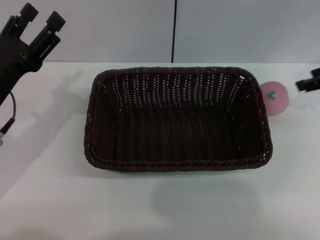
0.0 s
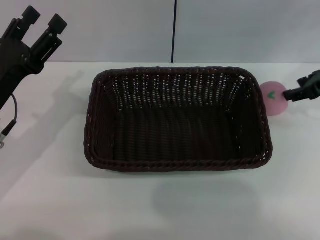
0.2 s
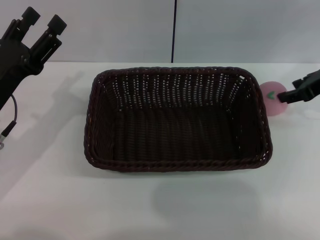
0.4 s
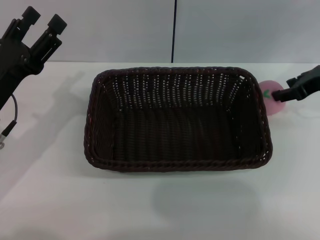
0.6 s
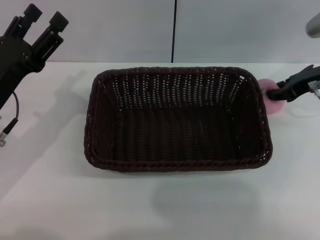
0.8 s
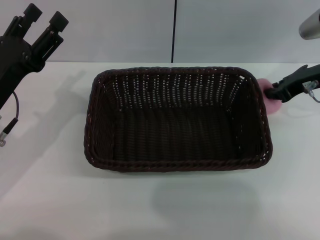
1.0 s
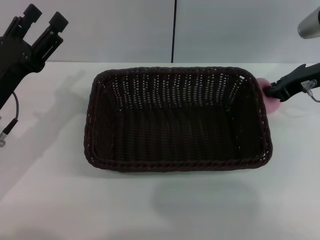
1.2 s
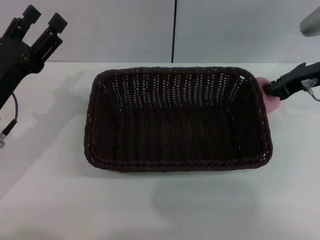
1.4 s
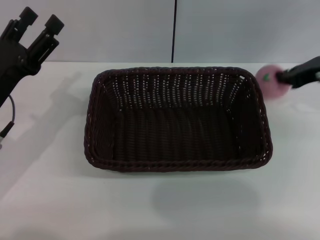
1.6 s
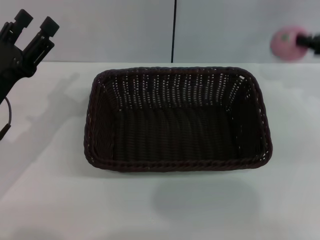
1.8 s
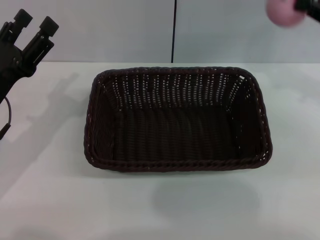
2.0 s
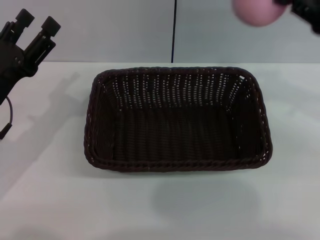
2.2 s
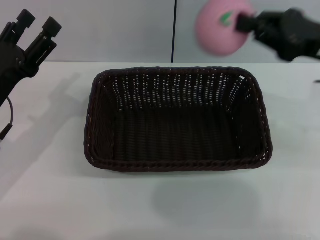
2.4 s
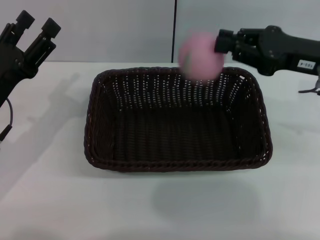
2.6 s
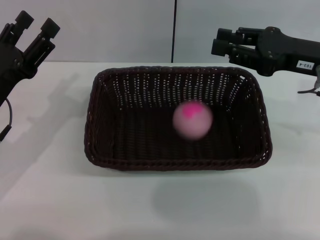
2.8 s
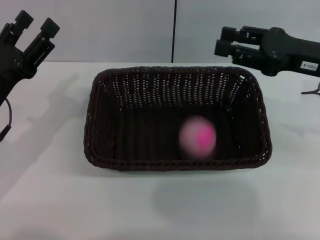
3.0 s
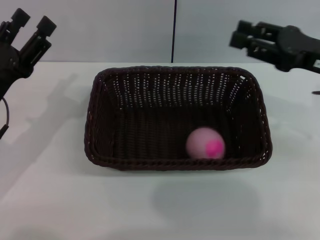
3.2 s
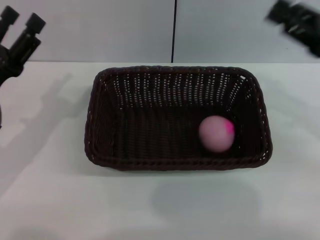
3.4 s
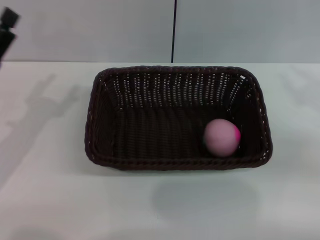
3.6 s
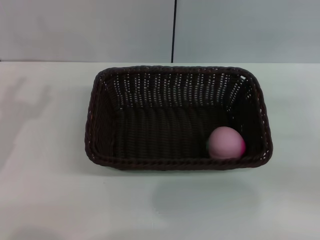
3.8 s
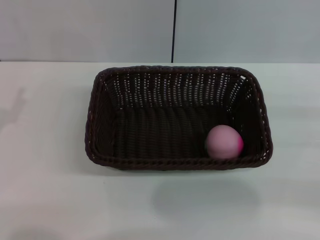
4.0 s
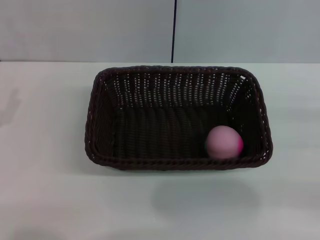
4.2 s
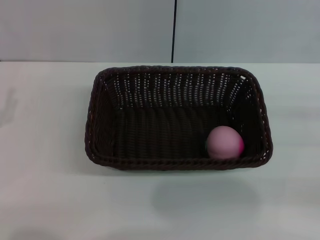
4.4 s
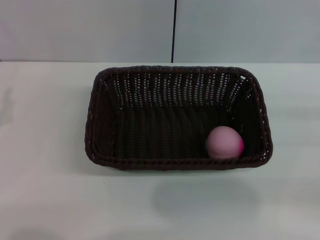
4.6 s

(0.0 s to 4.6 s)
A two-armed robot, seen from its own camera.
0.0 s - 1.6 s: The right gripper closes up.
1.6 s - 3.0 s: The right gripper moves backward, roughly 5 cm, and opens.
3.0 s - 4.6 s: The left gripper is displaced to the left and backward by roughly 10 cm, and closes its fingers, while the right gripper travels to the right, backward and downward by roughly 20 cm.

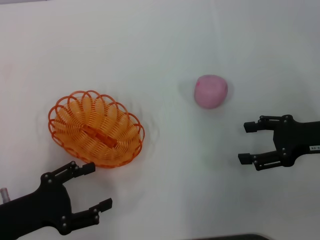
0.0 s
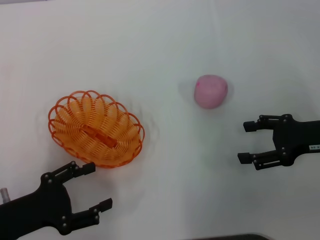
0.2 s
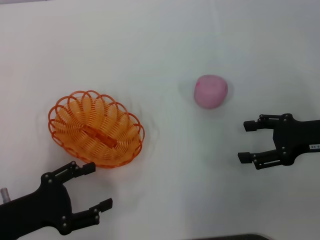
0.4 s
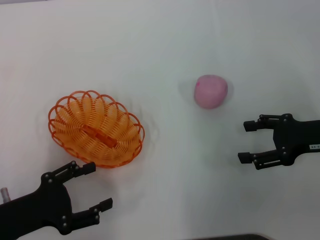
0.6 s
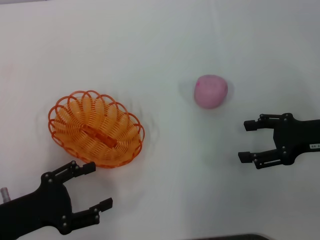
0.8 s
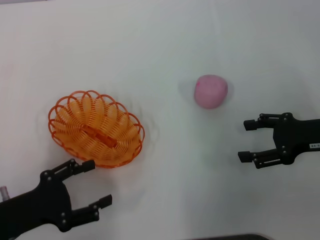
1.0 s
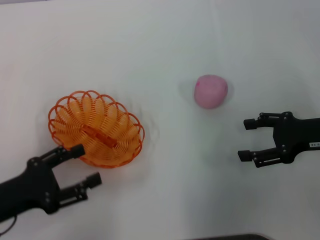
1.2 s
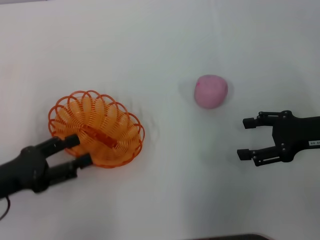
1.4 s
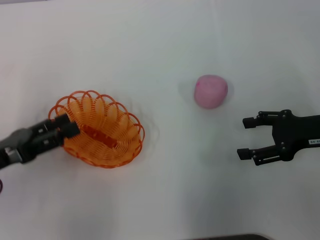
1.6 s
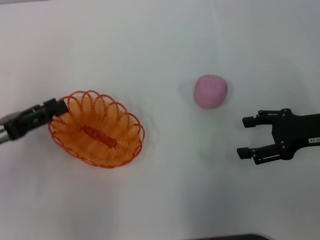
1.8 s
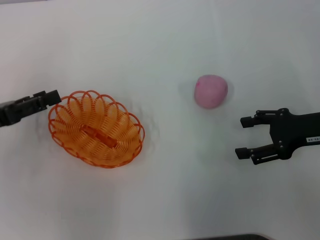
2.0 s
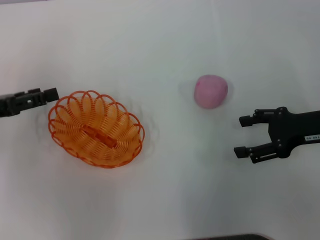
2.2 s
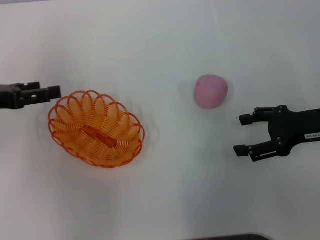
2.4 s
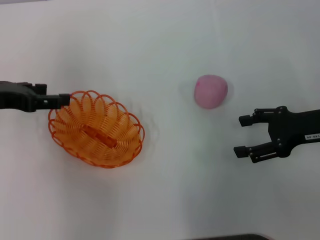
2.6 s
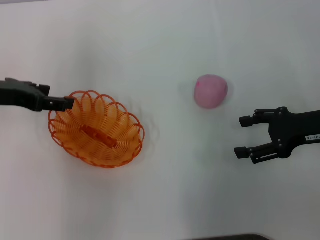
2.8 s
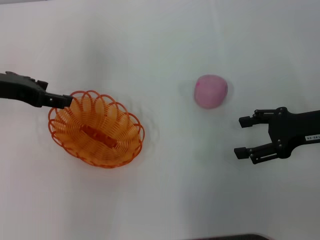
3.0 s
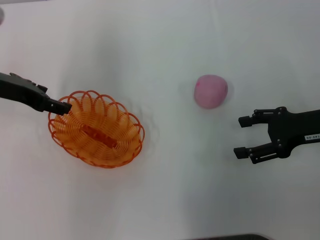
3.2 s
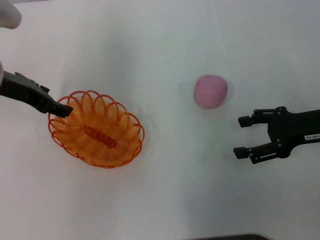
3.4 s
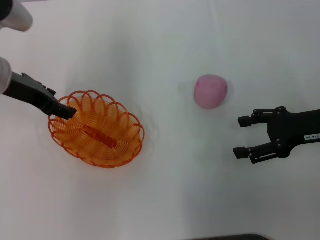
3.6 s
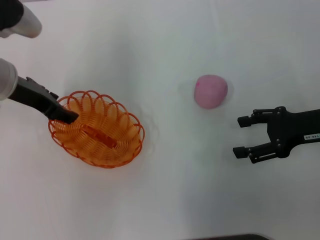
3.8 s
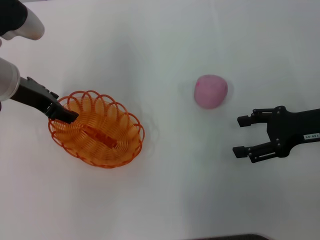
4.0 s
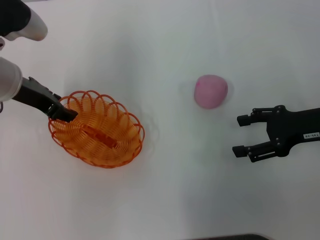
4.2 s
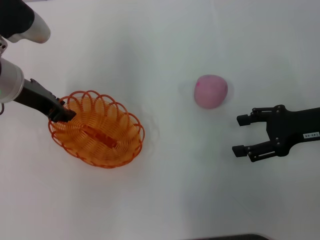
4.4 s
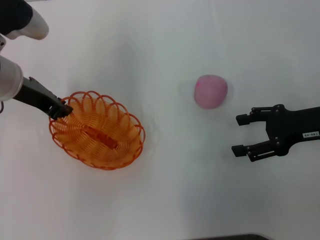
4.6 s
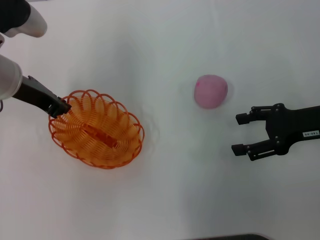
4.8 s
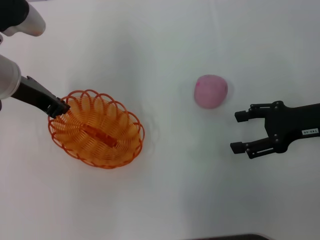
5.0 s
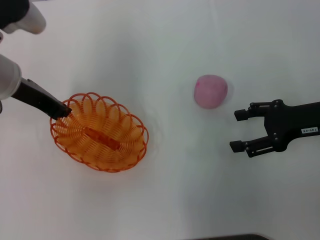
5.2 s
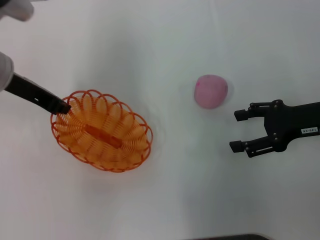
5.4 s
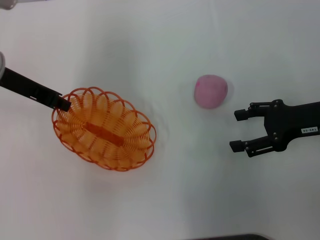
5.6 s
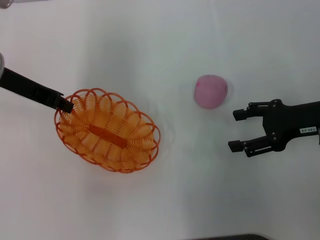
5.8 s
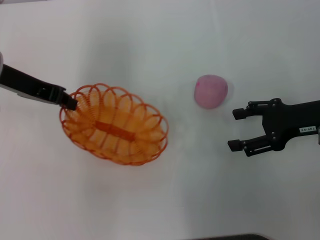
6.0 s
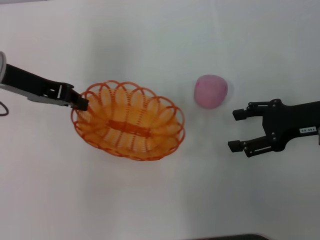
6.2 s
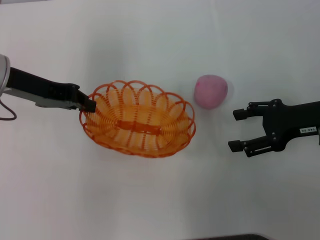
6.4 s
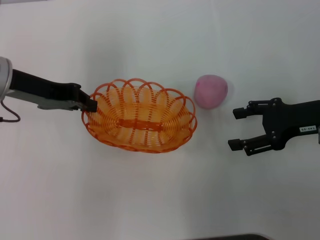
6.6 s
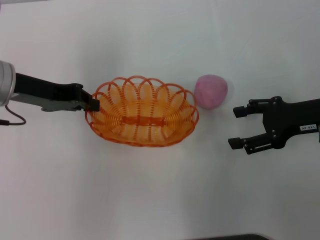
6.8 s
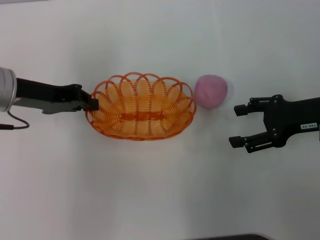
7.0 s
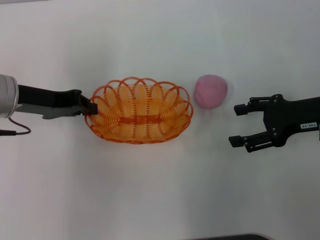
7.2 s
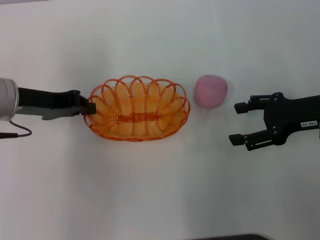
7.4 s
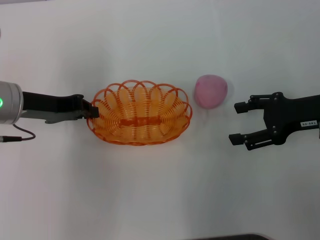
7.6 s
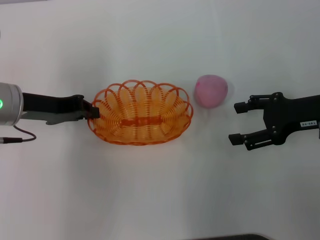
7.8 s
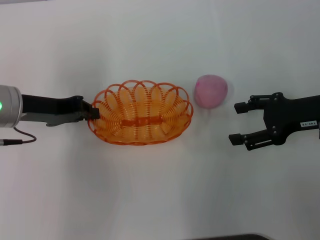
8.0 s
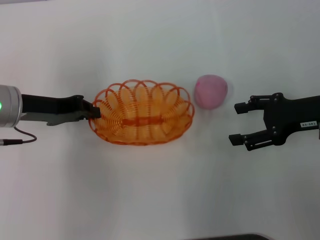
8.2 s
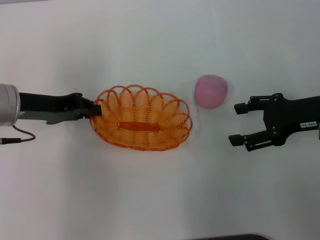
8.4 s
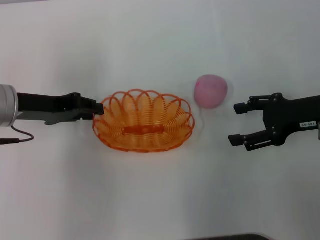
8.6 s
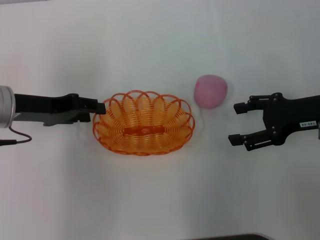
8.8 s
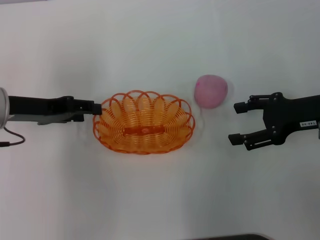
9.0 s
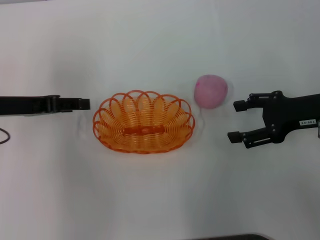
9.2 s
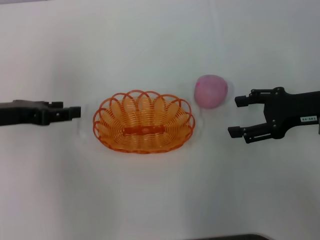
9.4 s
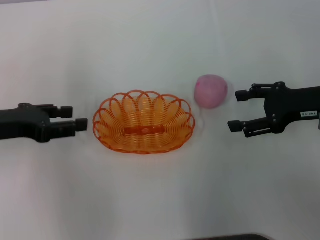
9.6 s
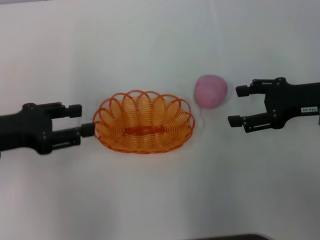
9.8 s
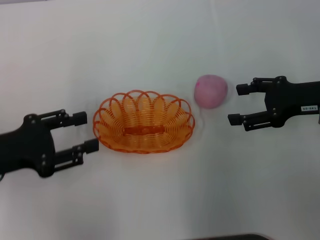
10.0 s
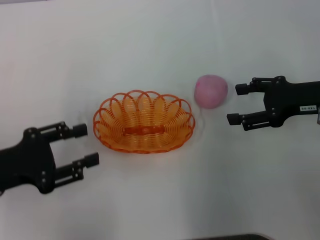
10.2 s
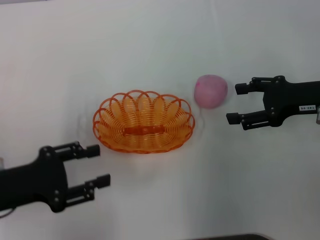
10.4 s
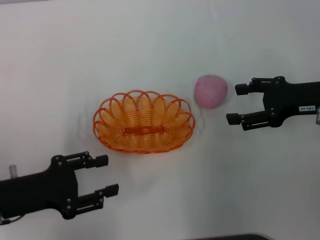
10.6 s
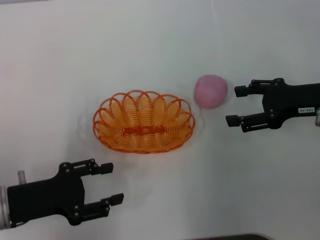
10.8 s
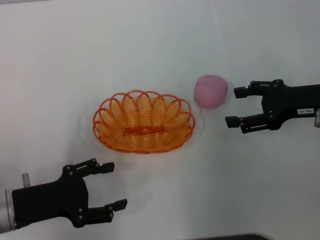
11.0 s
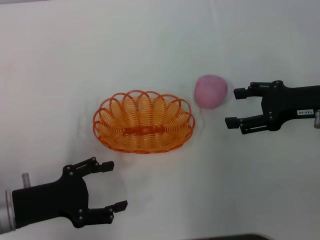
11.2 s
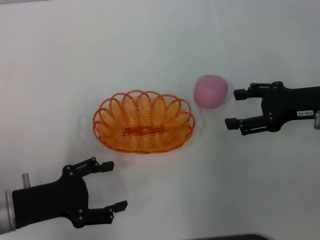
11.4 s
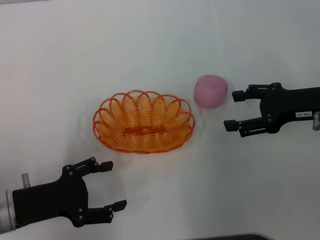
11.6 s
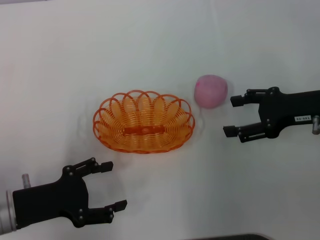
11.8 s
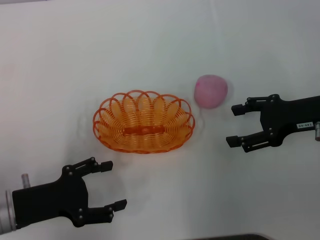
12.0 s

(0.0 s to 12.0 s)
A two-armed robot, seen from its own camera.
Step, 0.0 s - 6.4 s: Pick up the basket with the left gripper.
Step, 6.6 s - 10.6 s: Place the basket in the center of view with the left gripper.
0.0 s - 1.6 s: The left gripper shifts by approximately 5 cm.
1.6 s - 3.0 s: The left gripper moves forward and upward, approximately 15 cm.
3.0 s - 4.4 s: The left gripper is displaced to the right by approximately 5 cm.
4.4 s - 6.0 s: The left gripper closes up.
6.0 s - 7.6 s: The left gripper travels downward by some 5 cm.
7.6 s - 9.0 s: The left gripper opens.
9.0 s - 10.4 s: The left gripper goes roughly 10 cm backward.
10.4 s - 12.0 s: There are only small adjustments of the grippers.

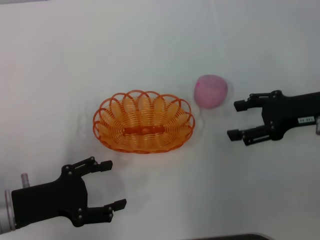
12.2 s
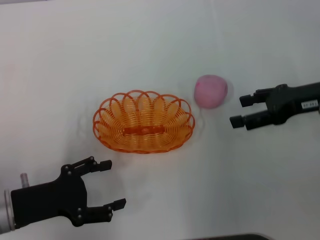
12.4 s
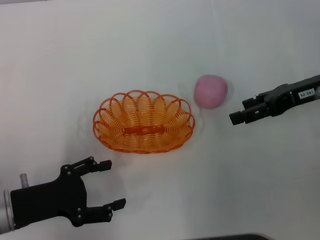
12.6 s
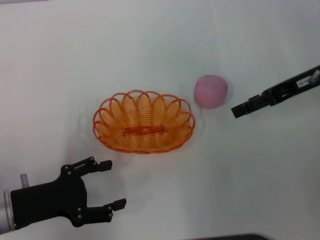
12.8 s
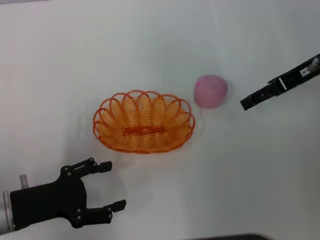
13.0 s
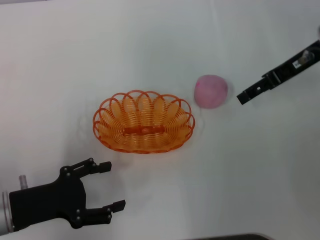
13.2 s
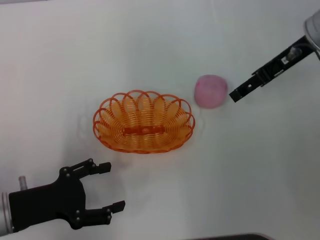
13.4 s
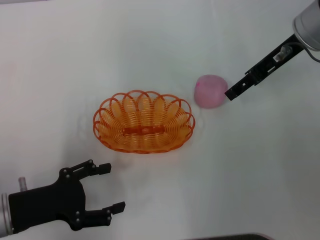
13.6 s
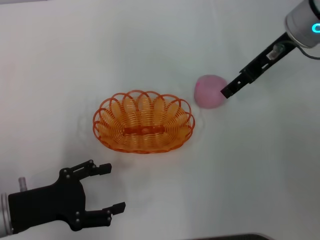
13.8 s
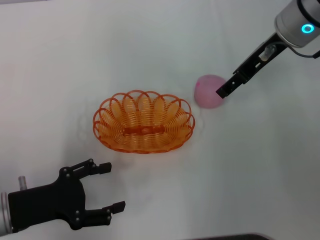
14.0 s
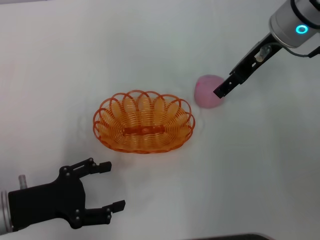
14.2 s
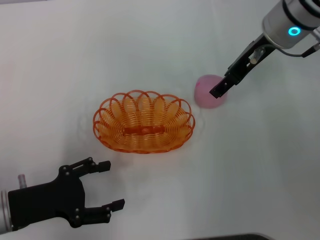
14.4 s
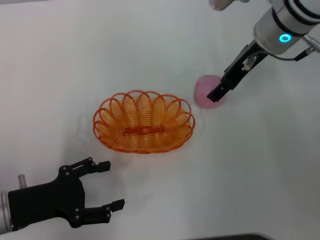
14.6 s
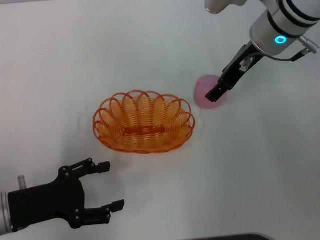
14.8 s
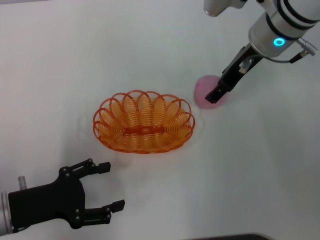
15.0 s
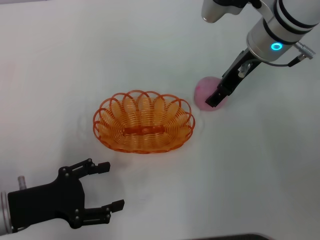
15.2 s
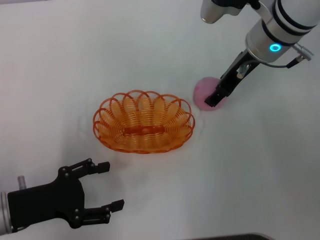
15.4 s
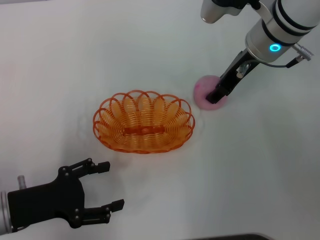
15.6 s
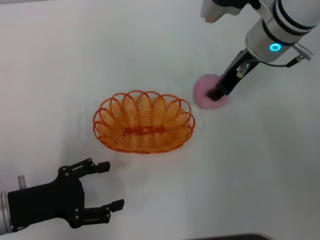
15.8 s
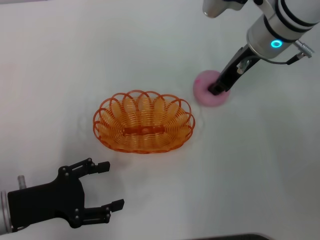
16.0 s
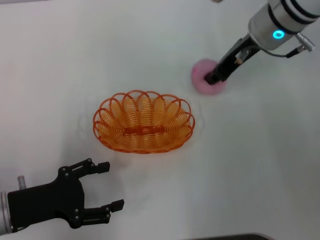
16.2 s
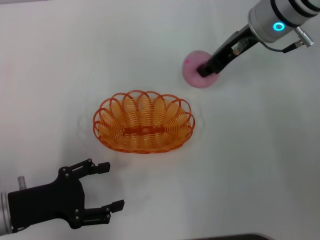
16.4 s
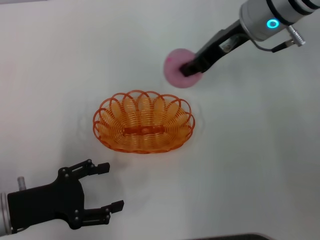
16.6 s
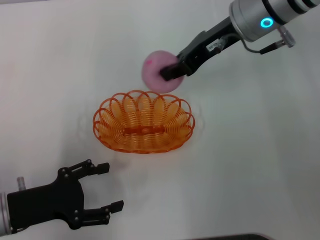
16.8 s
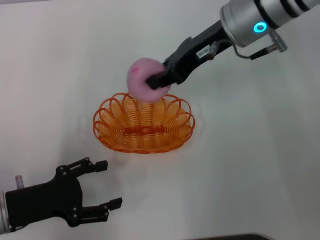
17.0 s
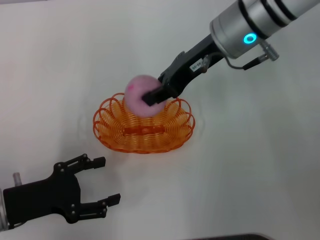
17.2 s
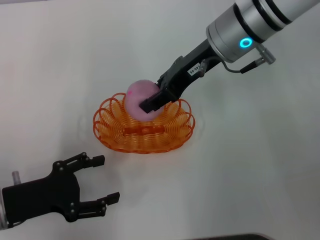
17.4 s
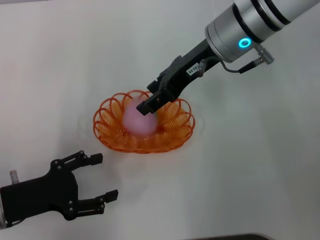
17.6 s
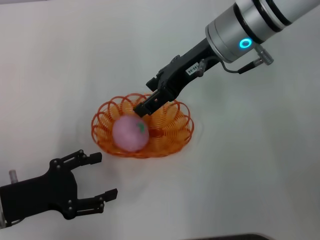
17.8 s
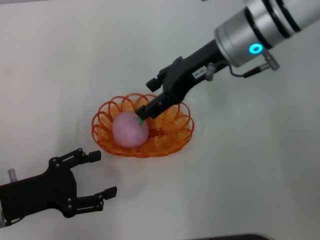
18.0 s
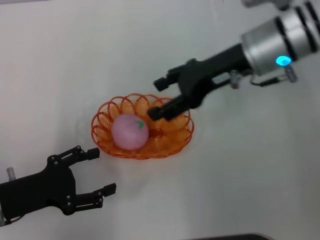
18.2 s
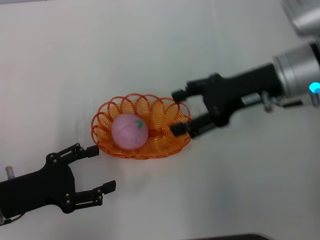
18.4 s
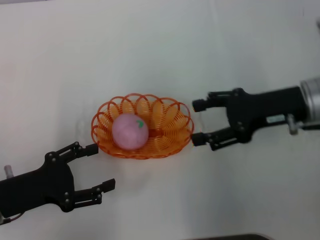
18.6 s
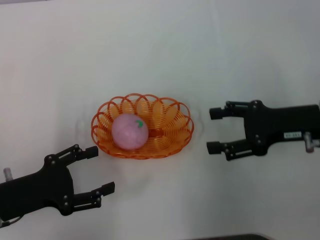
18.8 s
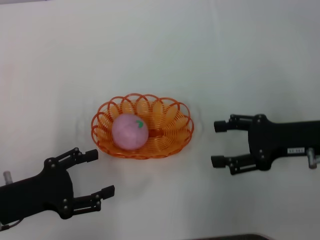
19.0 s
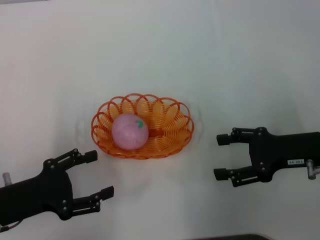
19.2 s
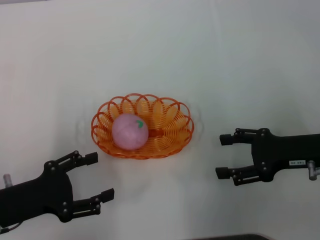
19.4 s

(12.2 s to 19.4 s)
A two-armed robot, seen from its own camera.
Step, 12.2 s - 16.4 s: Pick up the peach with the right gripper.
Step, 16.6 s - 18.6 s: Place the peach into the basket with the right gripper.
12.2 s - 13.6 s: The right gripper moves forward, upward and to the left, some 15 cm.
13.6 s - 15.0 s: The right gripper shifts roughly 5 cm to the left.
15.0 s - 16.6 s: The right gripper closes its fingers.
16.6 s - 18.0 s: The right gripper opens.
18.0 s - 19.4 s: The right gripper travels to the right, backward and downward by some 25 cm.
